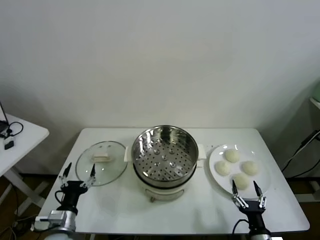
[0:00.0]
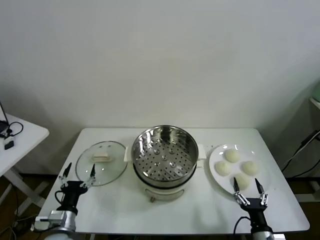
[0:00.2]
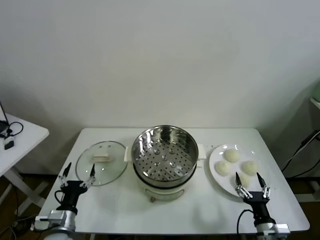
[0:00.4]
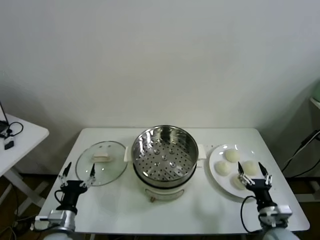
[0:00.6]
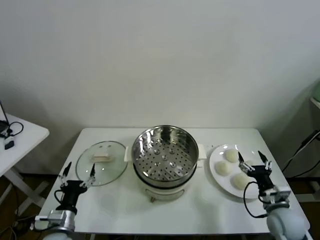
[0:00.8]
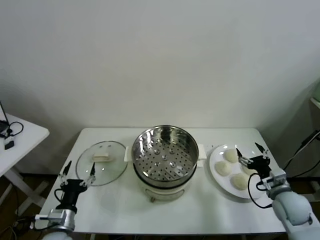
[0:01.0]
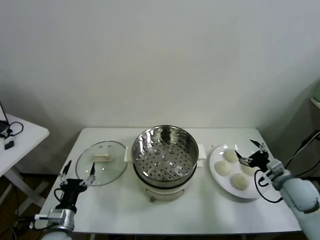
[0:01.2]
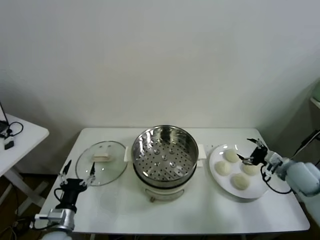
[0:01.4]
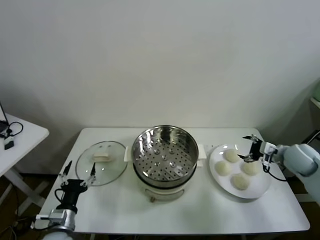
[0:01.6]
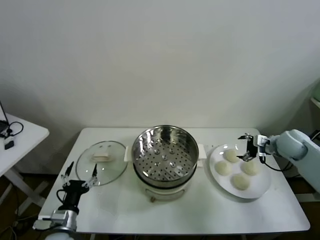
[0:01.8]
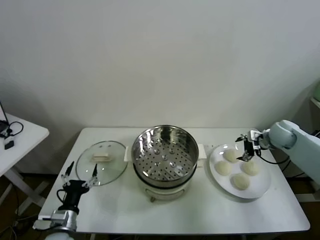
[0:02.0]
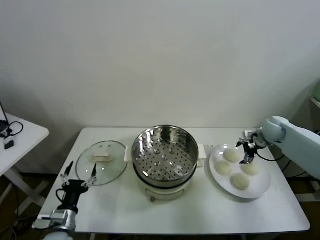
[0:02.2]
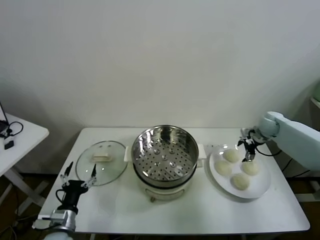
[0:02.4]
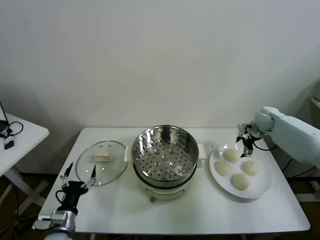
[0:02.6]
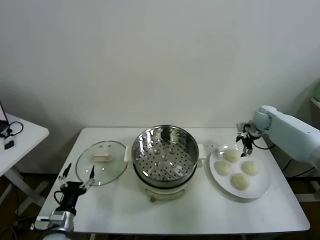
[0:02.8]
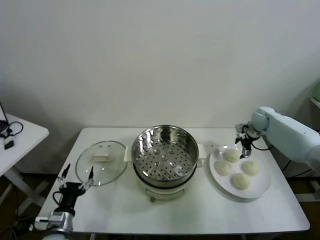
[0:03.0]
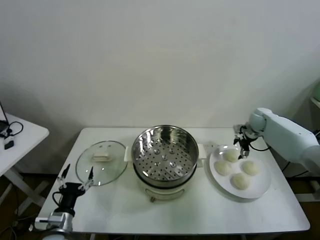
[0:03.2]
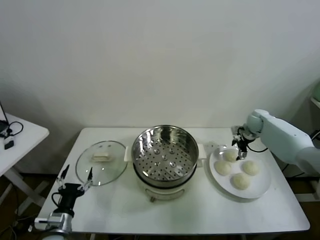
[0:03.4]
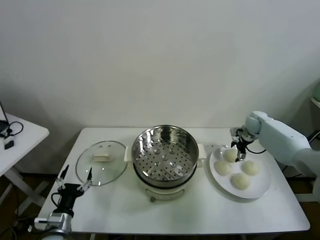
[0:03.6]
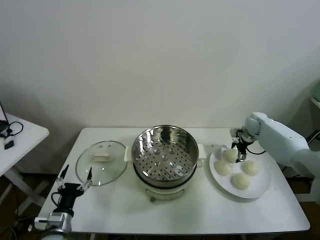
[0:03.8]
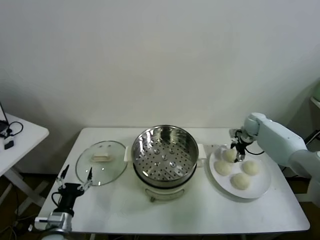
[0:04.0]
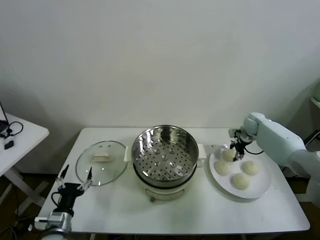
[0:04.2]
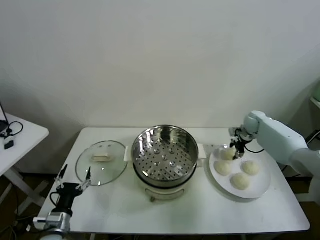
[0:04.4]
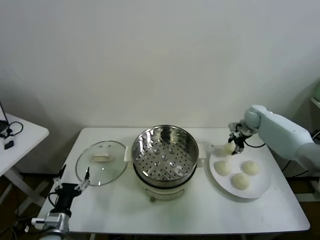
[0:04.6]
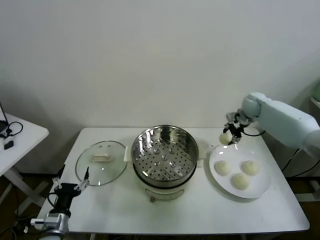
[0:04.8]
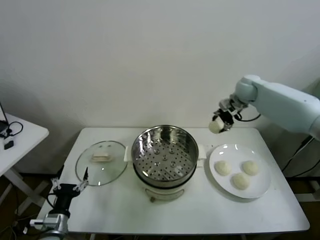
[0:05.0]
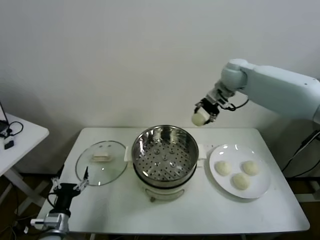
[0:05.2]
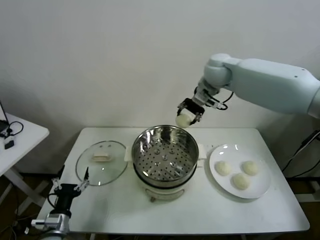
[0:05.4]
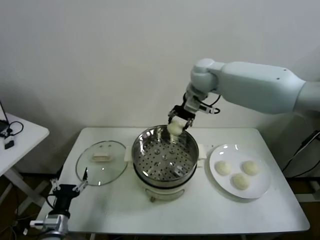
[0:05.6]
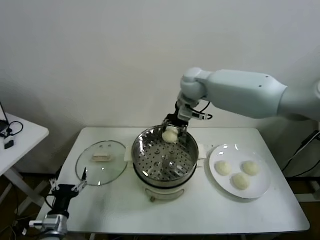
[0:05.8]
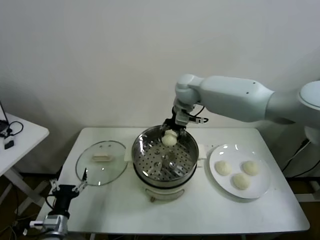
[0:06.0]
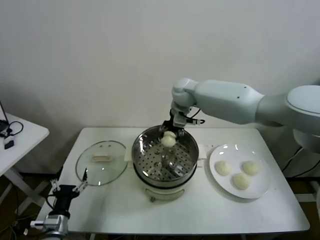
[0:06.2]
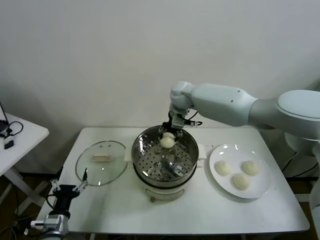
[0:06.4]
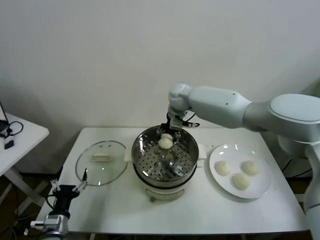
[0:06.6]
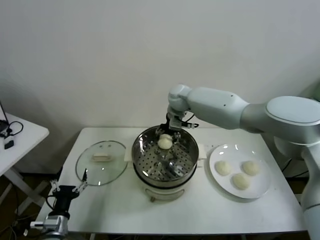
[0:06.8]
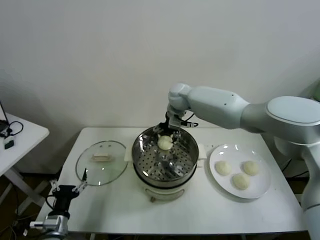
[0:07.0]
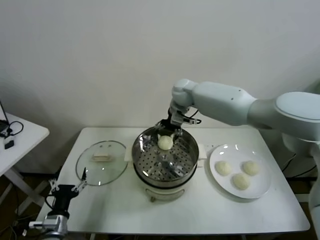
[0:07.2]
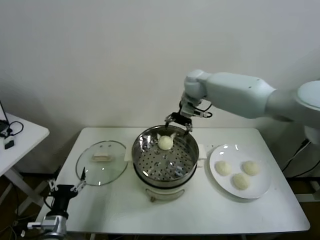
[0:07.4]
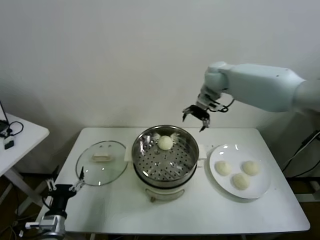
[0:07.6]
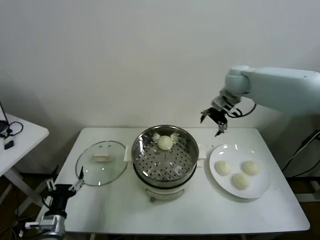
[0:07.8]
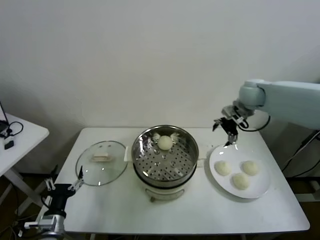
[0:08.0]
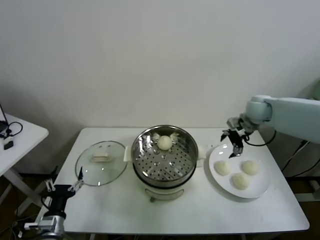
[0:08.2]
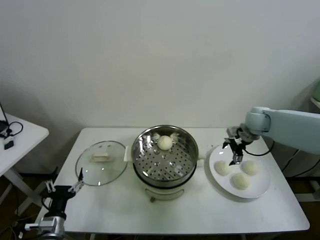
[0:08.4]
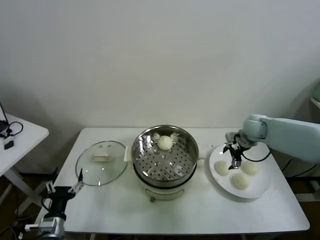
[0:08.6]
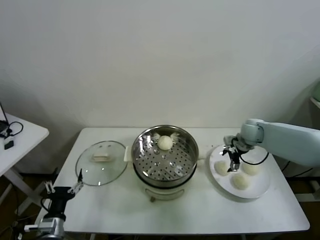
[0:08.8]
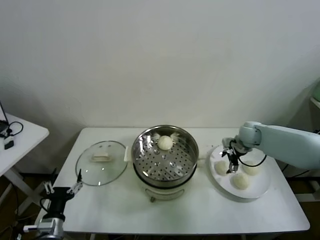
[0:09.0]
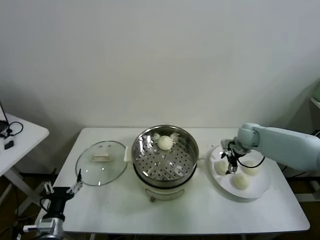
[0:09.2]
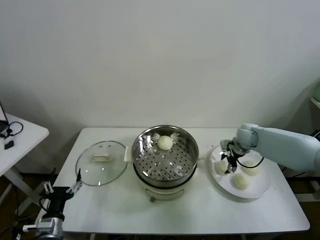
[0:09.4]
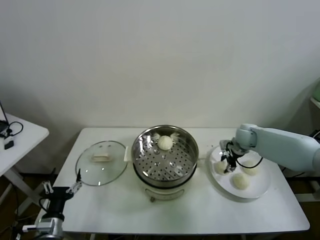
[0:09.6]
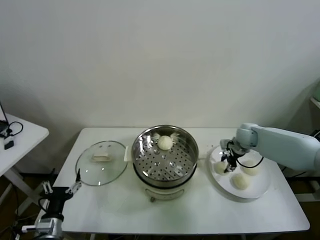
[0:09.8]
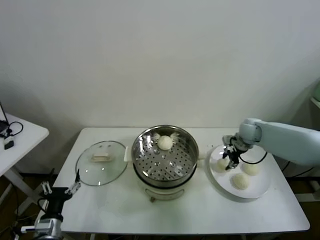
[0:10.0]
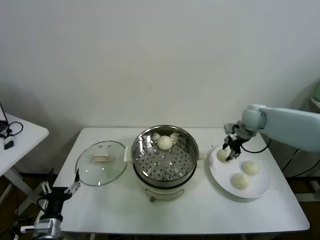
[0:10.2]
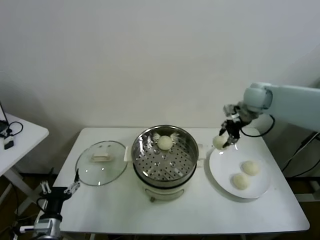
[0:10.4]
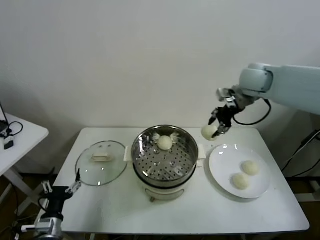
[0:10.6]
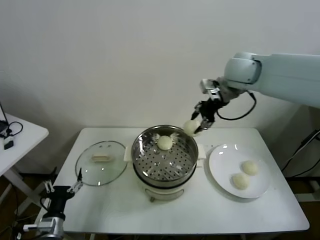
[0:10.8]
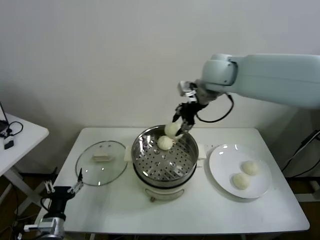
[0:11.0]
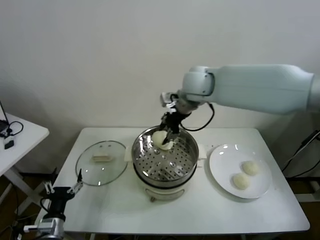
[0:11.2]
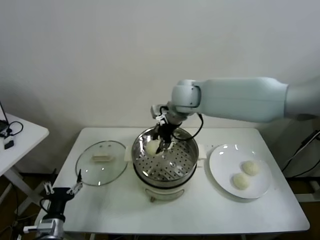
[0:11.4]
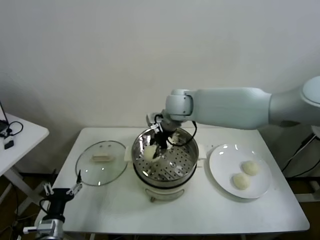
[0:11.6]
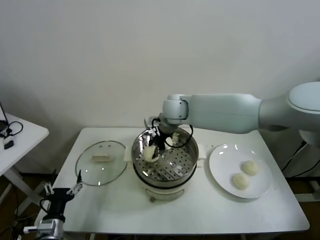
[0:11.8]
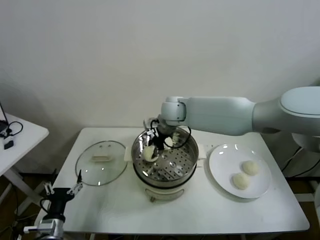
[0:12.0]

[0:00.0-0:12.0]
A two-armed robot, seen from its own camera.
Task of the whole recording: take steamed baozi put them in steamer.
Step, 0:00.0 to 0:04.0: Grasp the baozi in the plate with right gripper.
Step, 0:04.2 to 0:06.8: Place the baozi on the steamer with right gripper.
Step, 0:07.0 to 0:09.6: Grasp the baozi in the plate with right gripper.
0:01.6 to 0:03.0: The right gripper goes some 15 cm forward.
0:03.0 to 0:04.4: The right gripper closes up.
0:04.4 to 0:06.0: The right gripper is displaced to the left and upward by some 35 cm.
0:06.0 to 0:07.6: The right gripper goes some 15 cm to the right, and opens up.
0:07.6 to 0:09.0: The right gripper travels downward and to the right by roughly 25 cm.
0:09.0 to 0:10.4: The right gripper goes approximately 20 cm upward, and closes its fingers.
0:10.4 to 0:12.0: The right gripper goes roughly 25 cm to the left.

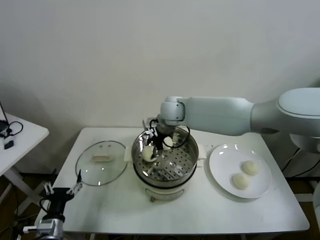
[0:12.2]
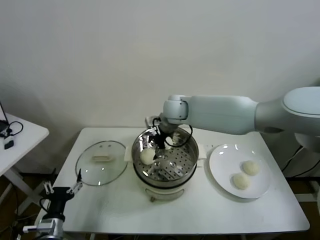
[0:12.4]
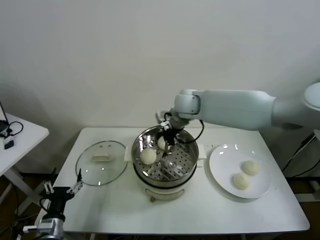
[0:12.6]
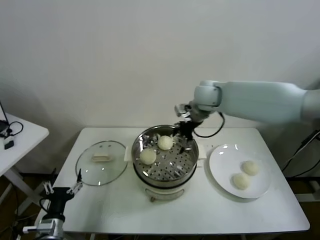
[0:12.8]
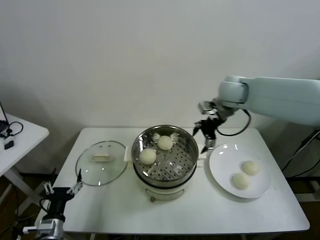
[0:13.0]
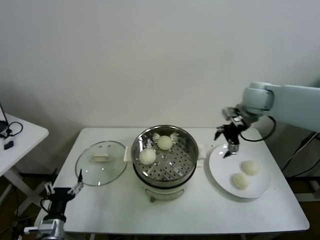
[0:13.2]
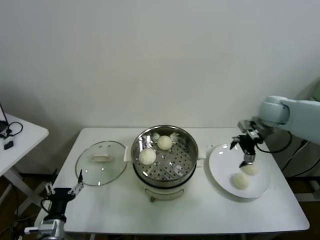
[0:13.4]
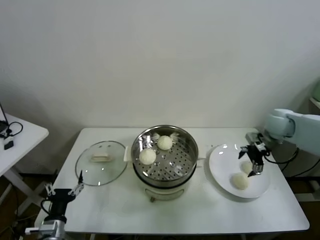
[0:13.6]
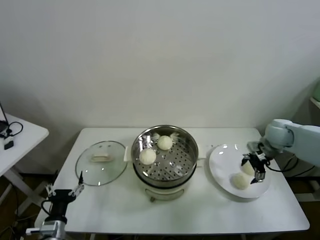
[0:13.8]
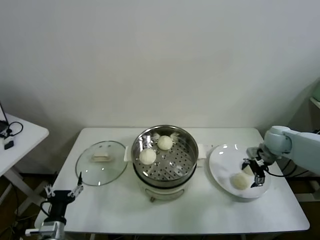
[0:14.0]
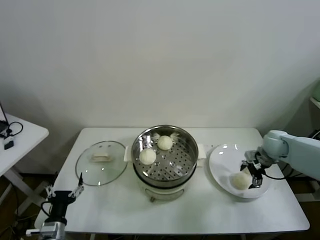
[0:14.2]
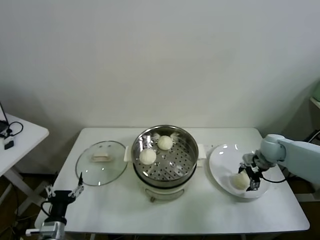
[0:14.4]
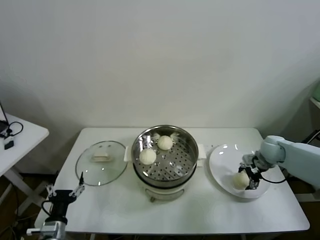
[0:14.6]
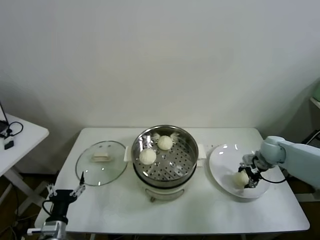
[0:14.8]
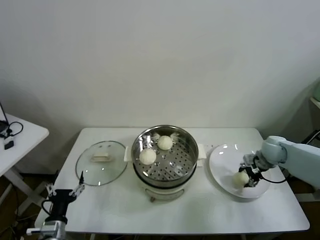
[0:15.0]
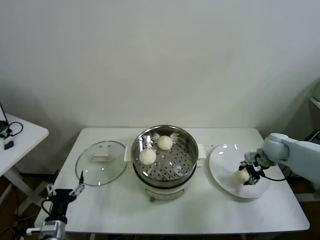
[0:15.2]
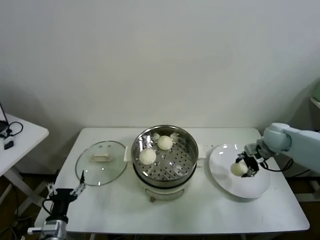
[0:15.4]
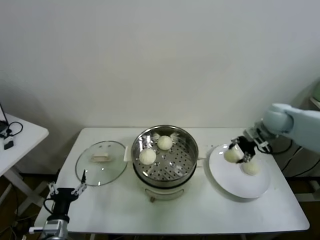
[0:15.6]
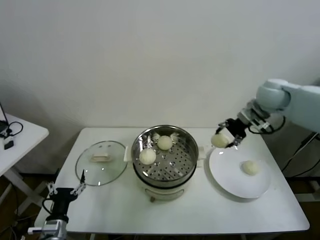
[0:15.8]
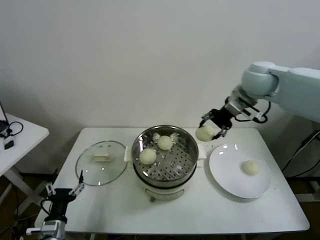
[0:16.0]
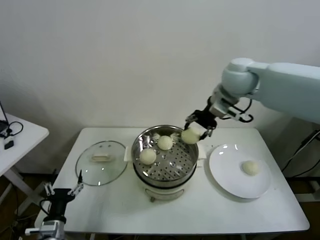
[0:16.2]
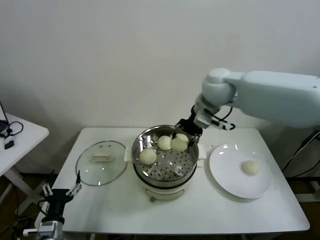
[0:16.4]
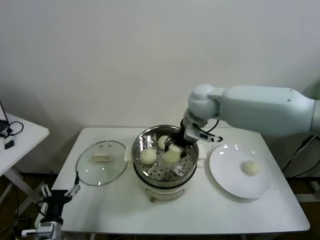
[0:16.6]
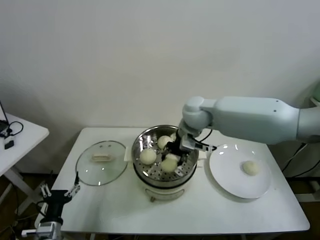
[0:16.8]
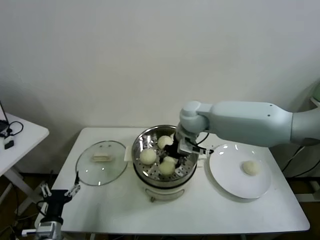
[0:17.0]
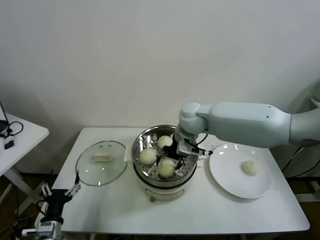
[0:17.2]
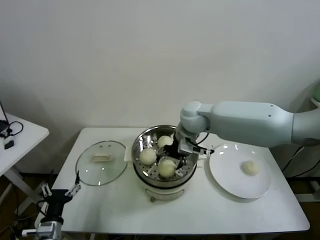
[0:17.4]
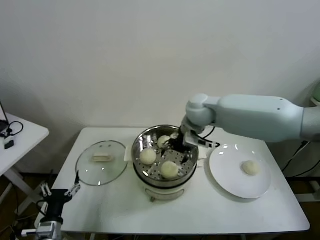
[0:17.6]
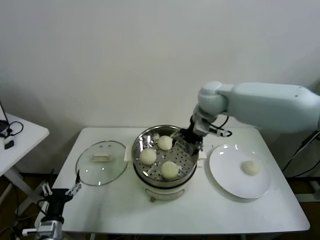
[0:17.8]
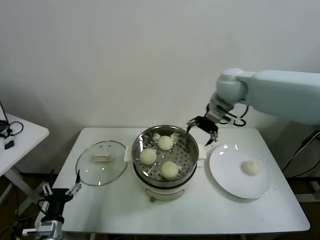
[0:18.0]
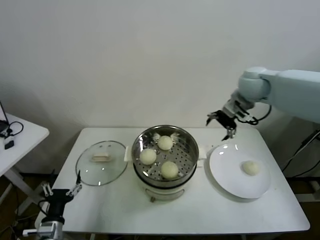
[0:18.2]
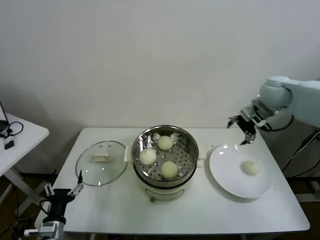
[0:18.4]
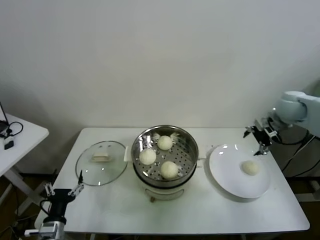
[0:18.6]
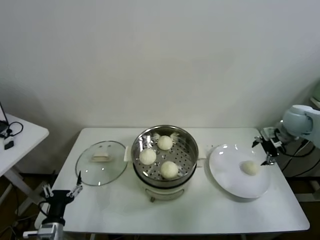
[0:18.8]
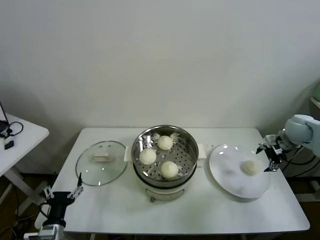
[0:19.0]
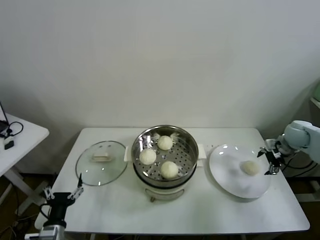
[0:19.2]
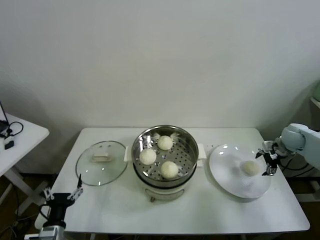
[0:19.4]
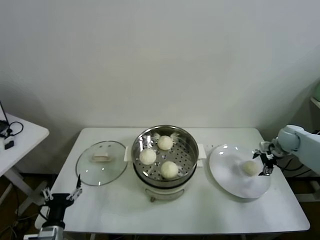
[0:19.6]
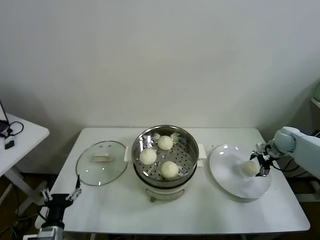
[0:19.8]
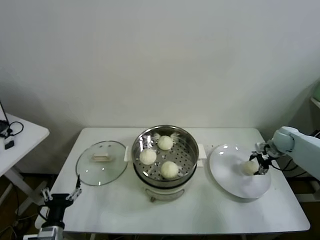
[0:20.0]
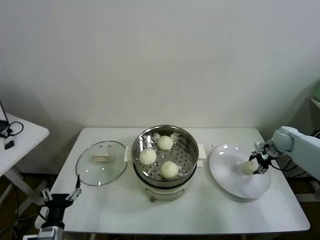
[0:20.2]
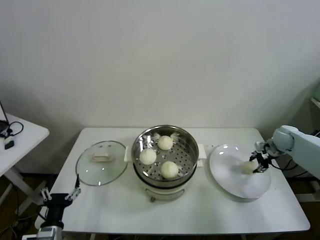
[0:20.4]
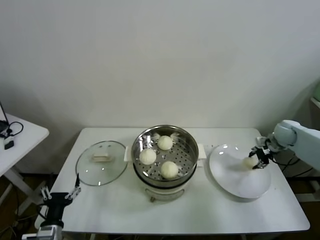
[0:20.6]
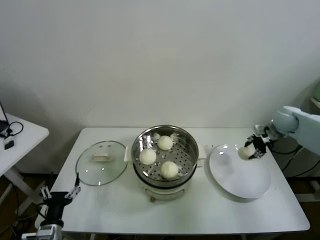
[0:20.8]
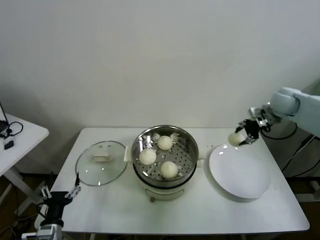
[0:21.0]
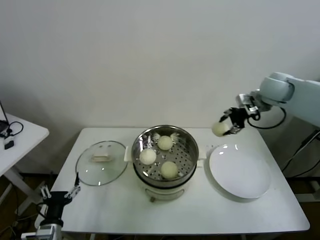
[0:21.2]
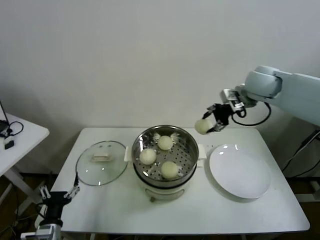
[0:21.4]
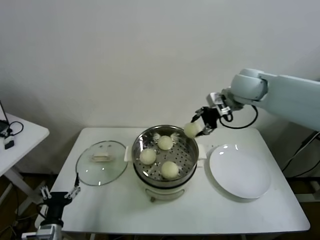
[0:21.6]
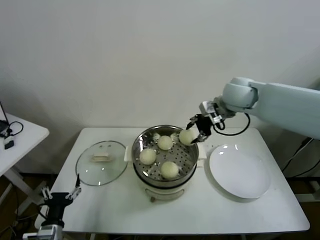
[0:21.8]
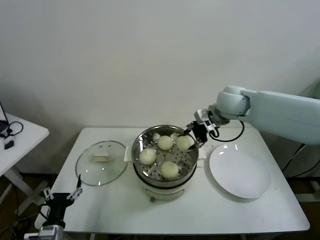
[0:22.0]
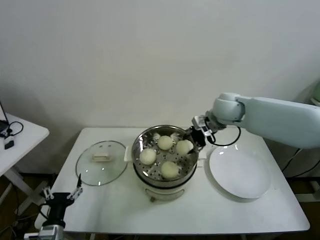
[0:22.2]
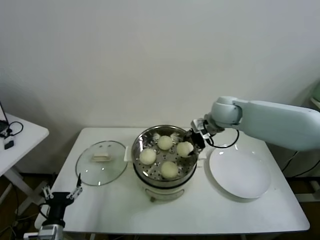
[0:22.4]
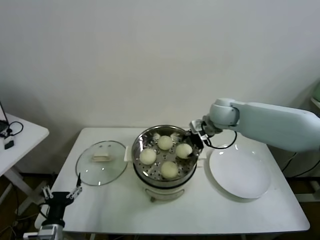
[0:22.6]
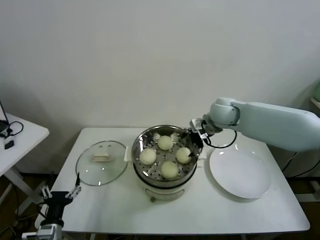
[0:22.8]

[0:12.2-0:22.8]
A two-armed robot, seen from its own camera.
Task of the whole recording: take steamed baozi put them in steamer.
Step, 0:12.4 to 0:14.8: Grasp the baozi in the plate with right gripper.
Step, 0:15.2 to 0:17.4: Place the baozi on the steamer with right gripper.
Step, 0:17.6 to 0:20.2: Grasp the baozi in the plate with right gripper.
Step, 0:20.4 to 0:22.6: Place the baozi on the steamer with right gripper.
0:12.2 to 0:13.8: The right gripper shifts about 35 cm to the right, and opens its fingers.
0:13.8 to 0:15.2: The right gripper travels downward by roughly 5 cm, and closes up.
0:15.2 to 0:16.8: The right gripper heads to the left and upward, covering roughly 35 cm.
0:16.8 to 0:18.2: The right gripper goes approximately 20 cm to the right and upward, and opens up.
0:18.2 to 0:19.8: The right gripper travels downward and to the right by roughly 30 cm.
0:19.8 to 0:21.2: The right gripper moves upward and to the left, some 25 cm, and closes its fingers.
0:21.2 to 0:22.8: The right gripper heads to the left and downward, covering about 15 cm, and opens.
